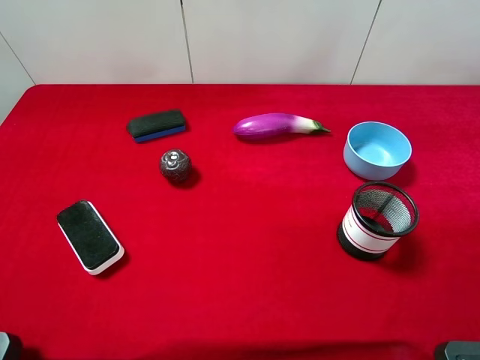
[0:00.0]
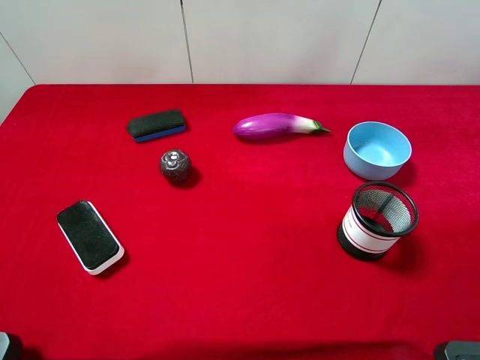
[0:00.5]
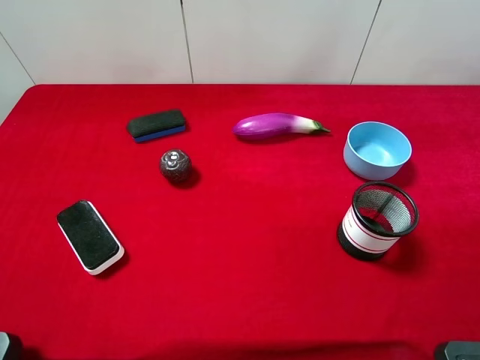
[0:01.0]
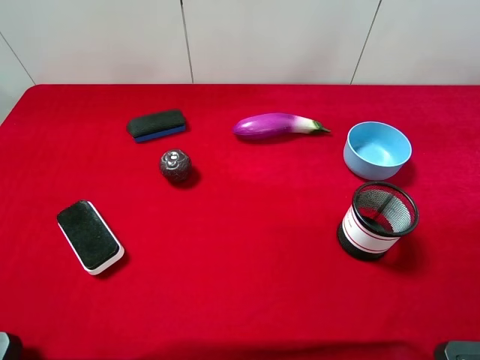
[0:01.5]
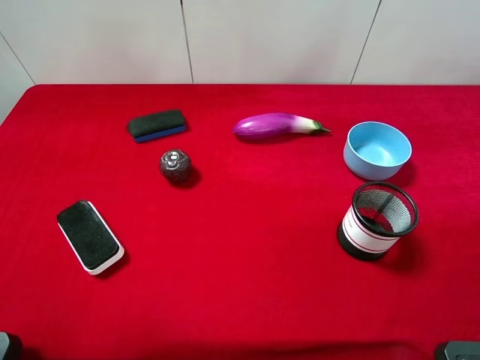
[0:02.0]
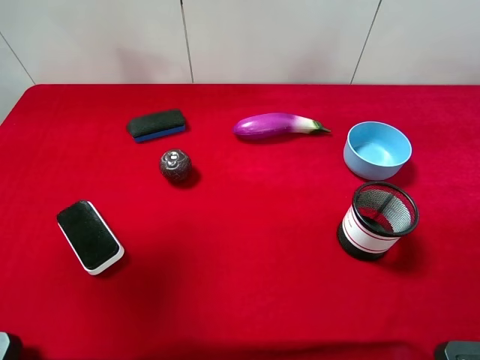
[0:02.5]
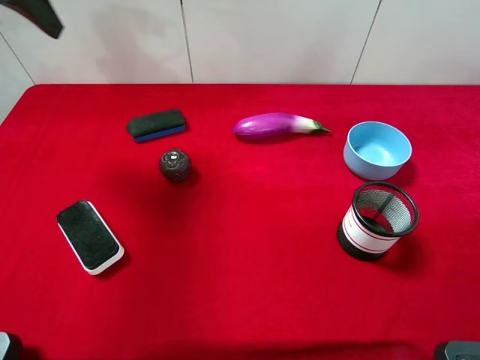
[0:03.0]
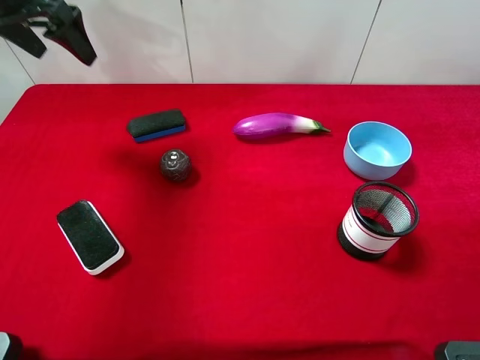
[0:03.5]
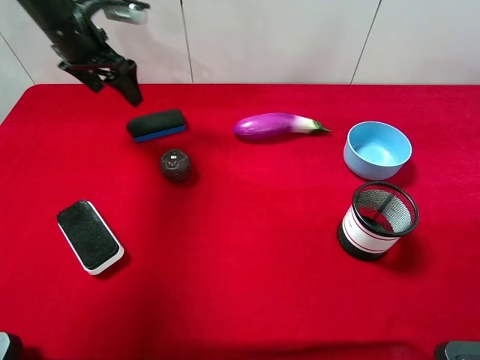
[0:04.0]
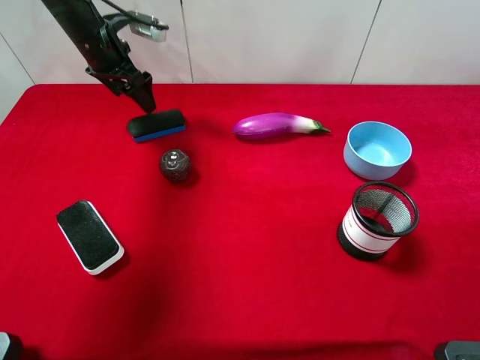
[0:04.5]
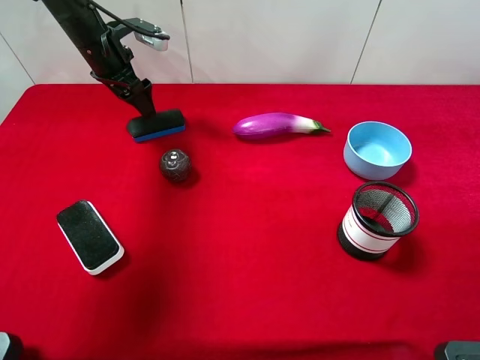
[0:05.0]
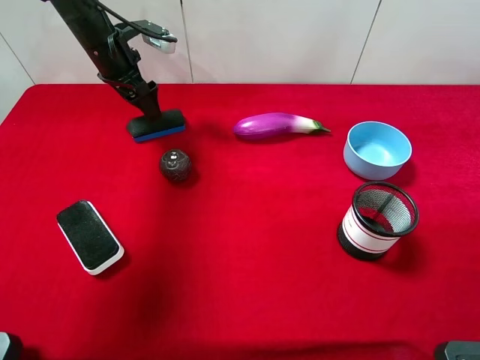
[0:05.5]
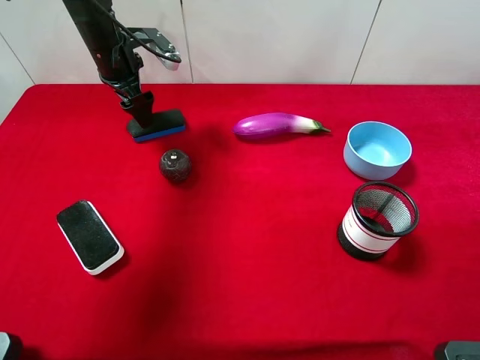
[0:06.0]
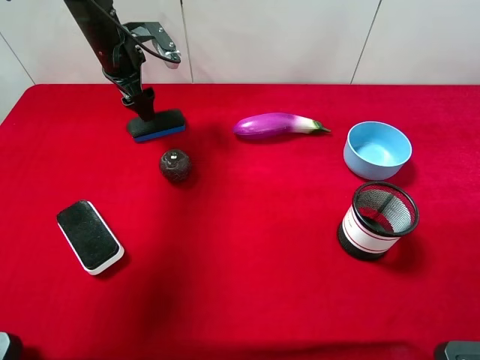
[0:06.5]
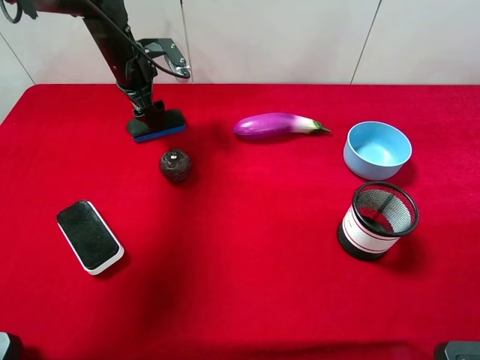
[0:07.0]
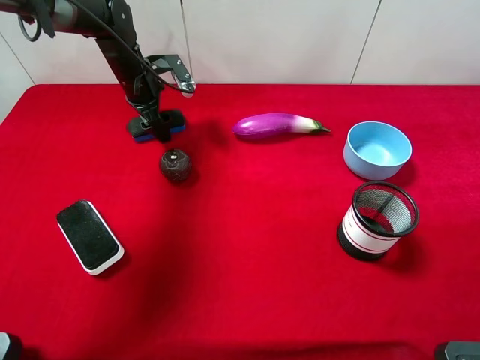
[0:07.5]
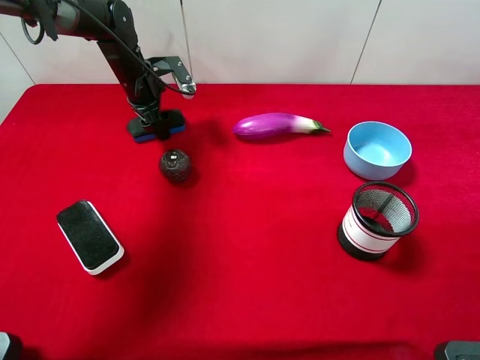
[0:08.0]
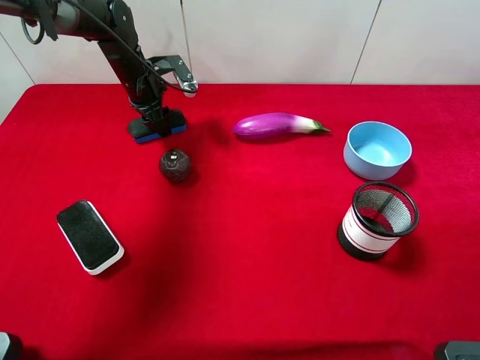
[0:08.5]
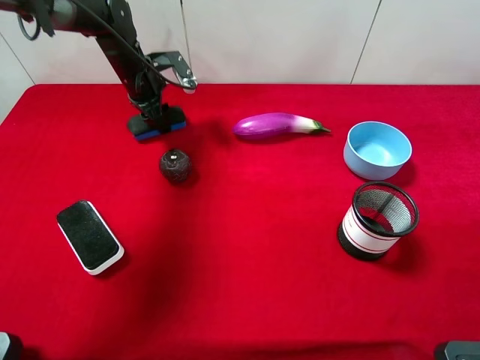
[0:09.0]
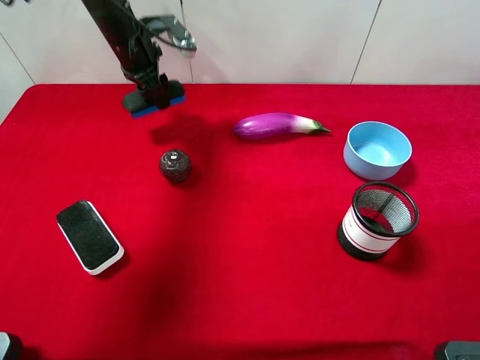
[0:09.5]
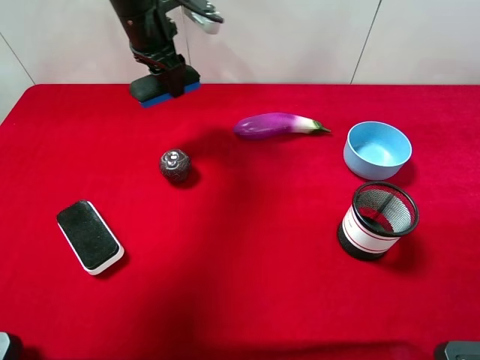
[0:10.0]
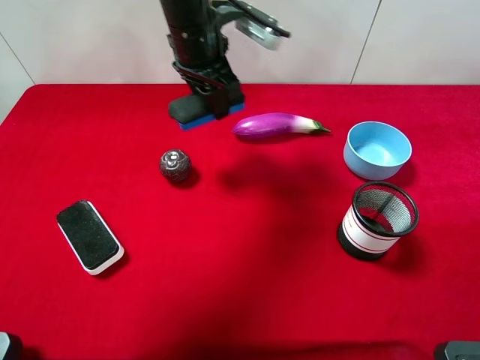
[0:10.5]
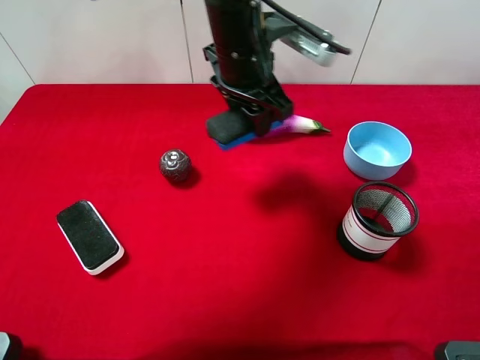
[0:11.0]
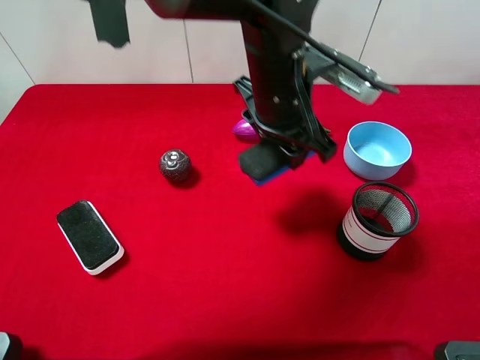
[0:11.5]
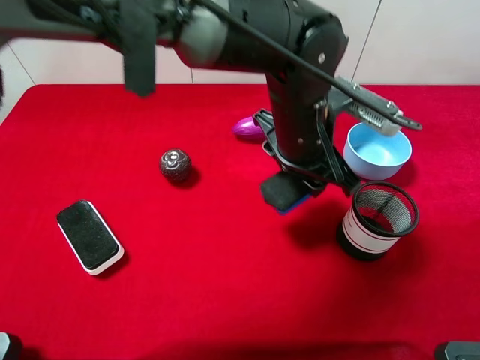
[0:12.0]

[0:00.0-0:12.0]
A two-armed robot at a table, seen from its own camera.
Task of the whole recording: the gripper move the object.
Step, 0:00.0 to 0:08.0: Grasp the blue blackboard erasure with the left gripper.
0:02.0 to 0:04.0: The left gripper goes roughly 35 cm forward.
0:04.0 to 0:06.0: The left gripper changes place by approximately 5 cm.
0:06.0 to 0:08.0: The left gripper goes about 5 cm downward, and closes.
0:08.0 to 0:10.0: The left gripper shifts approximately 15 cm upward and to the right.
0:10.0 to 0:12.0: The left gripper shifts roughly 25 cm to the right and backward.

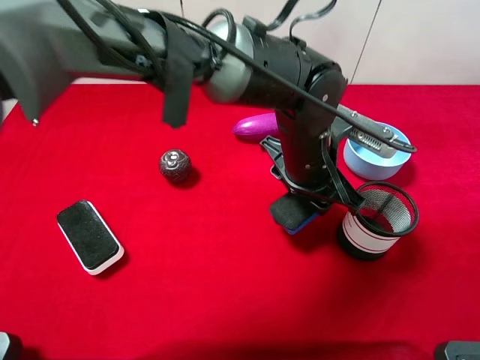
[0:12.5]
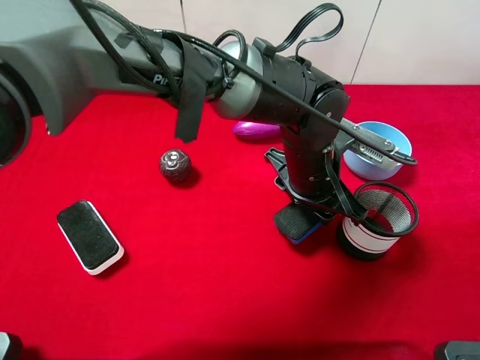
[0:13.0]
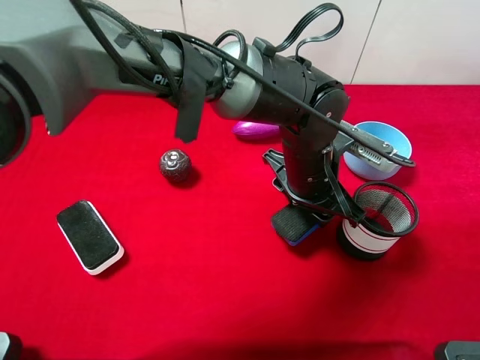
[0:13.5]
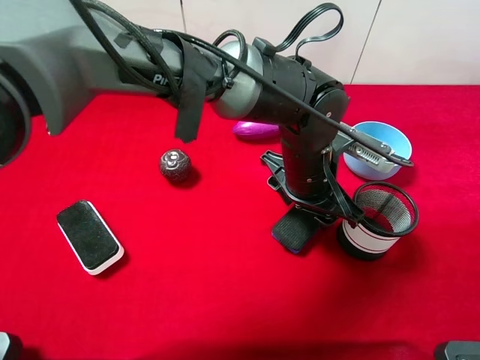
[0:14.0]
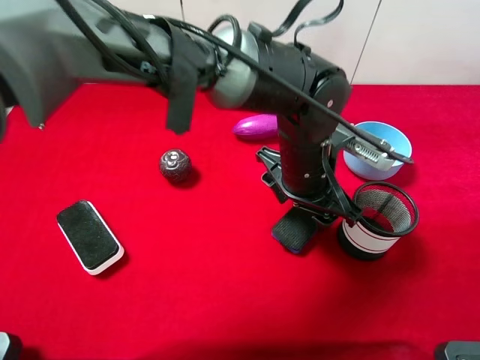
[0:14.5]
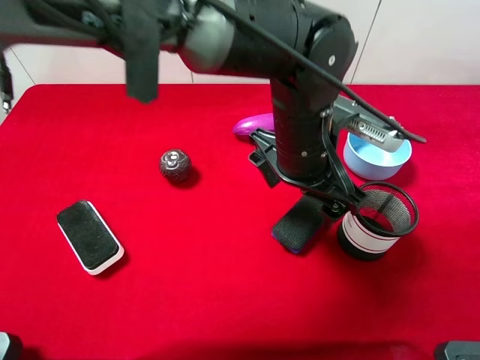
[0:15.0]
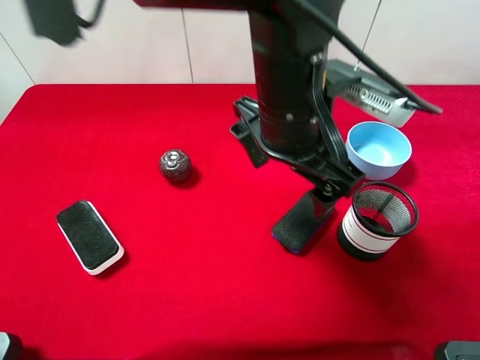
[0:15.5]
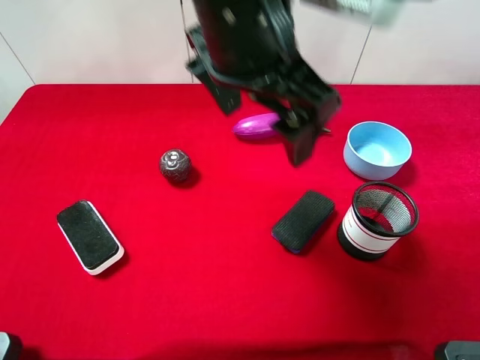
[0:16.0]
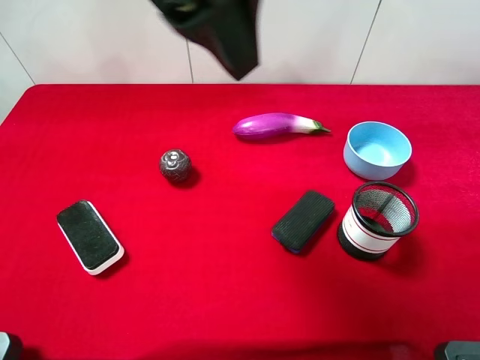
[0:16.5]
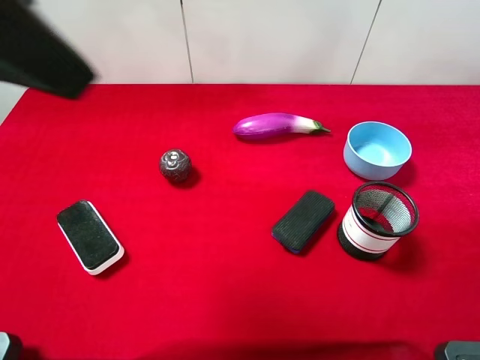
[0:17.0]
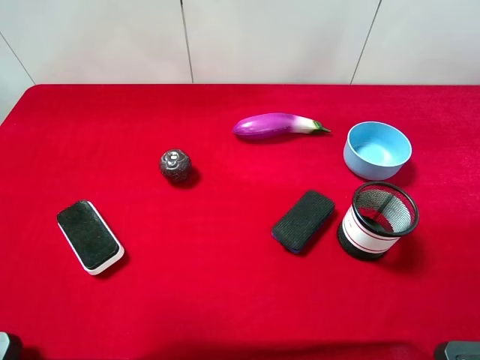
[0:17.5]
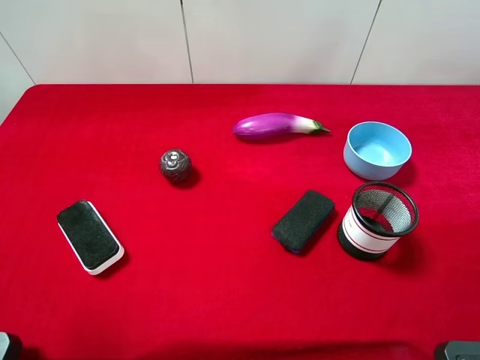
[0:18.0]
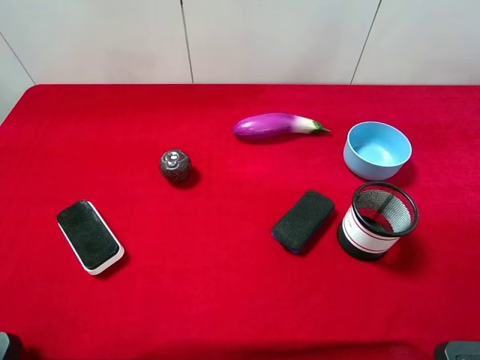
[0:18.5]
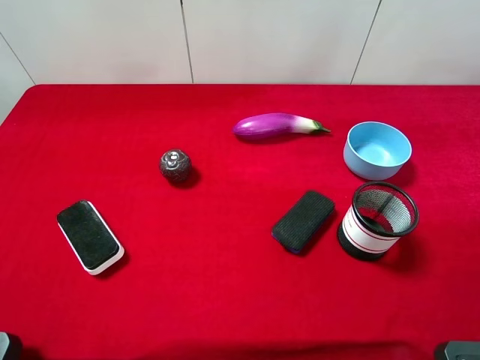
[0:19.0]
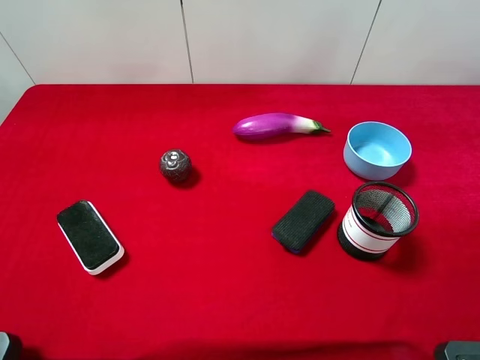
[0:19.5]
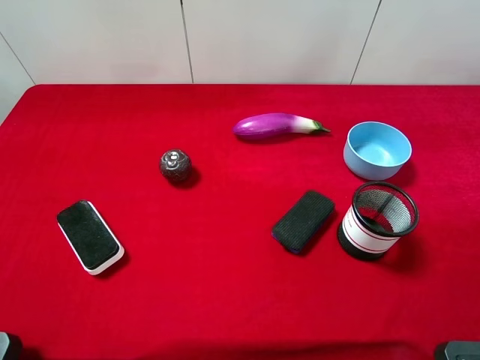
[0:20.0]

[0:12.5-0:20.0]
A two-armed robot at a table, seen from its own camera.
Task of the whole recording: the gripper move the object.
Step, 0:12.5 to 0:15.0: Place the blue blackboard erasure on the table with the left gripper.
0:12.5 to 0:14.5: The grippers move only a little.
0:14.5 to 0:16.5: The left gripper goes roughly 30 cm upward and to the left, and opens.
0:16.5 to 0:18.0: The left gripper is displaced to the left and backward by approximately 25 cm.

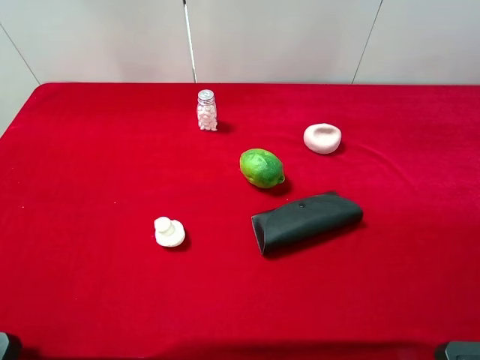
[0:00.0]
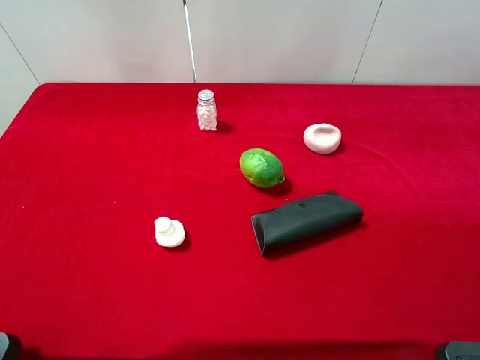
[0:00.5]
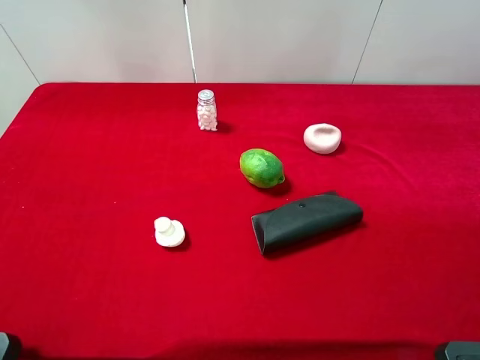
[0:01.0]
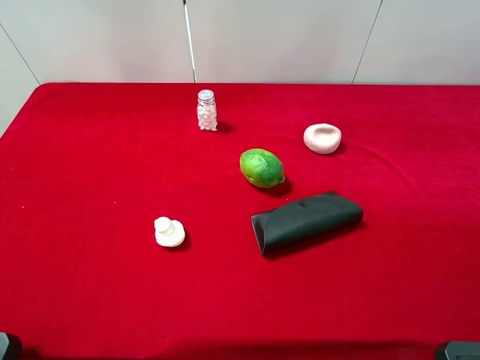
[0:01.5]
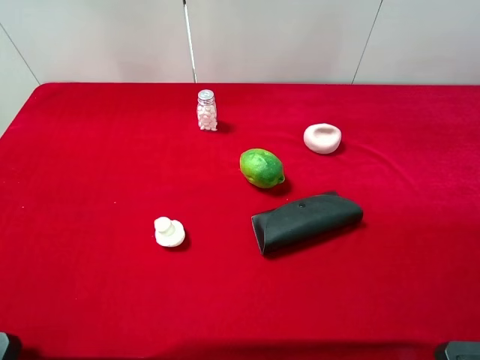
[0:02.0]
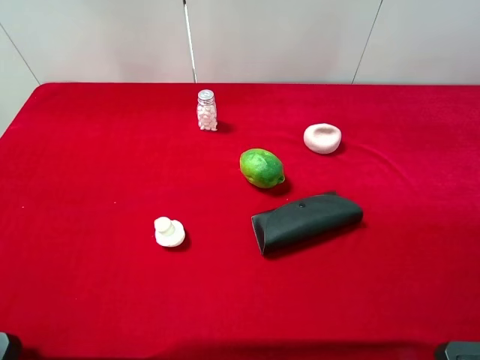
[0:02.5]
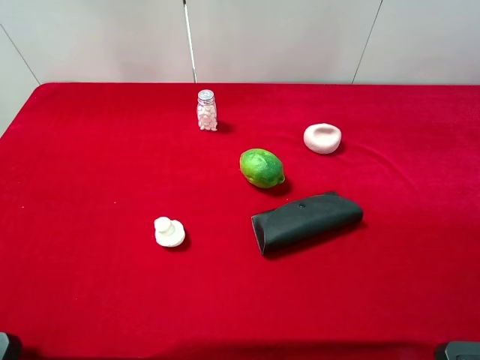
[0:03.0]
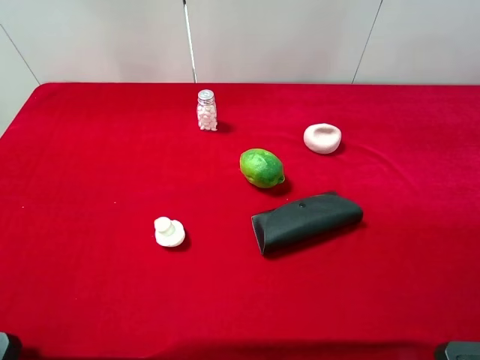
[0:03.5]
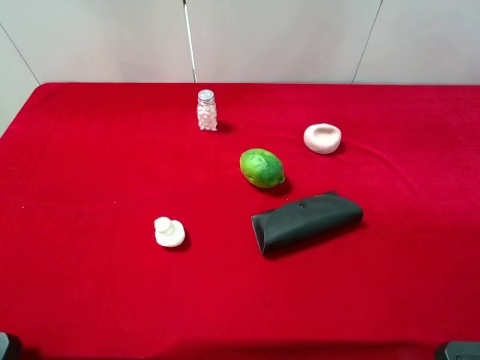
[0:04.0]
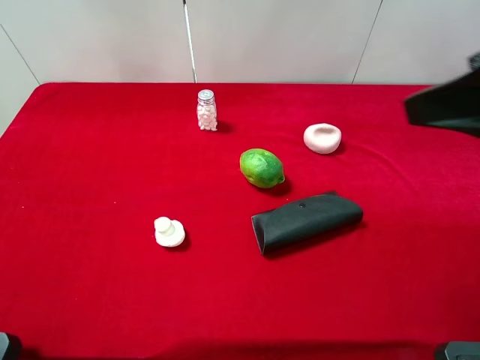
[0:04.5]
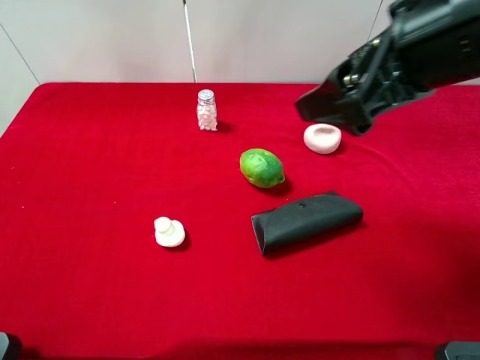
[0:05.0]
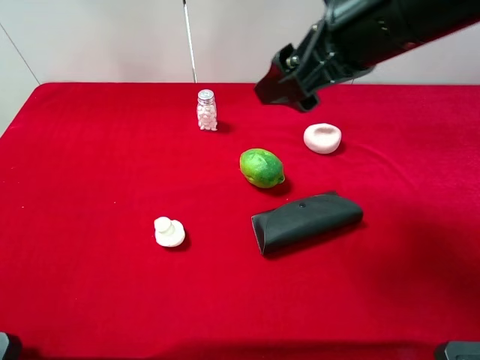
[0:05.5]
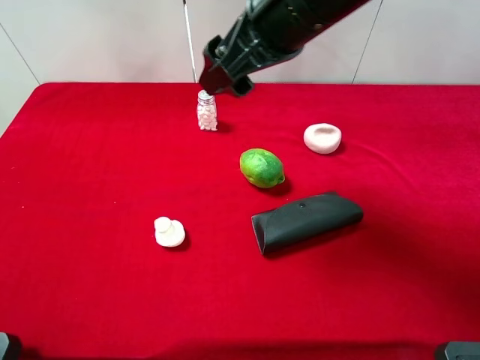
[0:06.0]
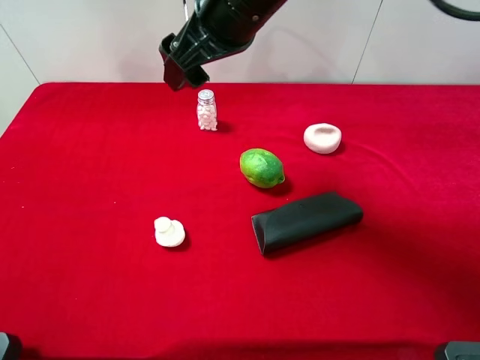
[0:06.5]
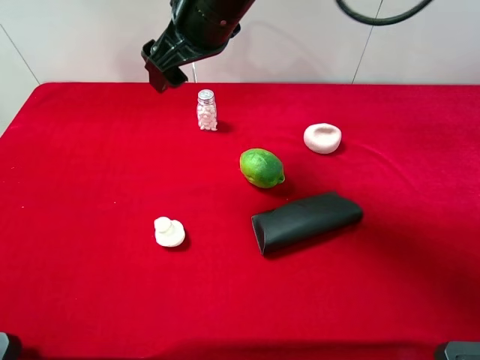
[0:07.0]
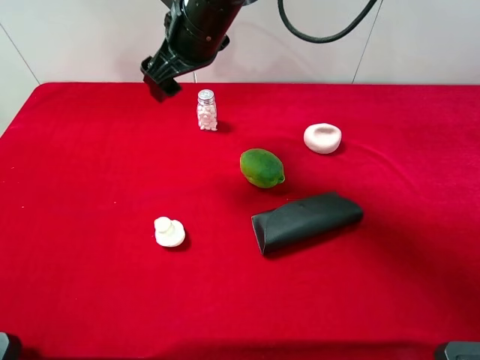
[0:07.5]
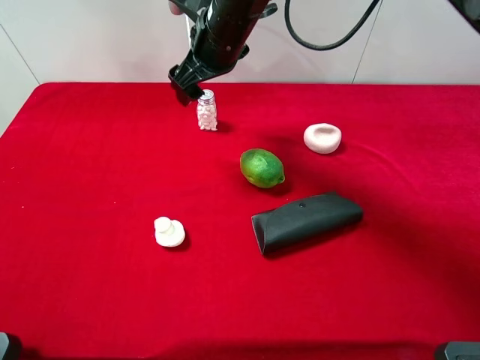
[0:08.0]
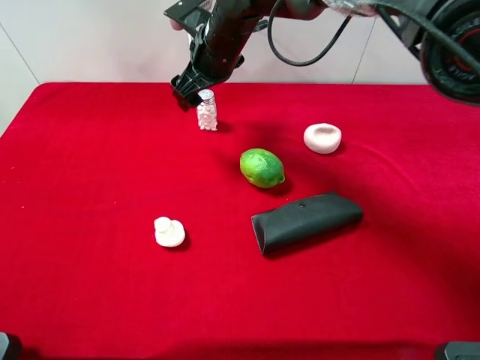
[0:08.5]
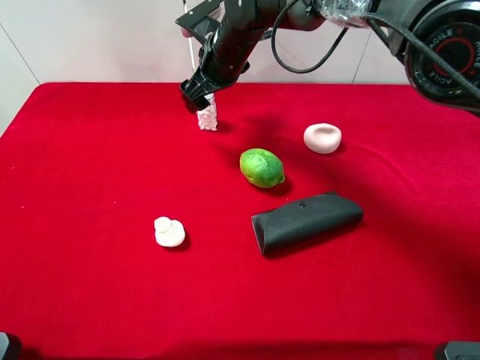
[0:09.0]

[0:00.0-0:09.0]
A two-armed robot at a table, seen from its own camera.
Task of the whole recording: the gripper move the object.
0:00.0 to 0:02.0: Neither gripper changes place.
0:02.0 to 0:04.5: The right gripper goes about 15 cm forward and to the left.
0:04.5 to 0:07.0: The right gripper is displaced to the left and forward by approximately 30 cm.
0:07.0 to 0:09.0: The right gripper heads downward and forward, covering approximately 15 cm.
